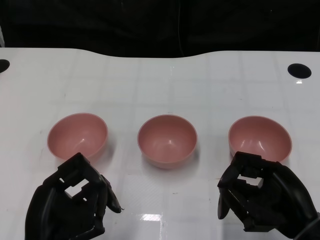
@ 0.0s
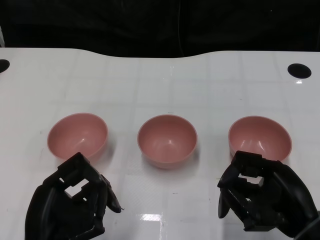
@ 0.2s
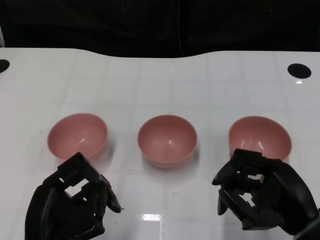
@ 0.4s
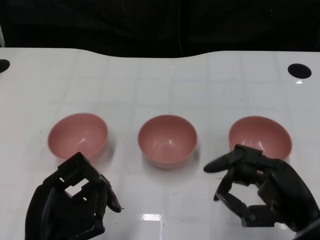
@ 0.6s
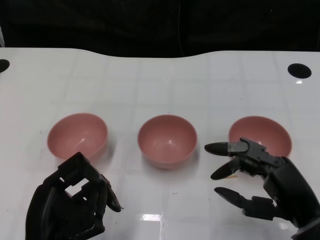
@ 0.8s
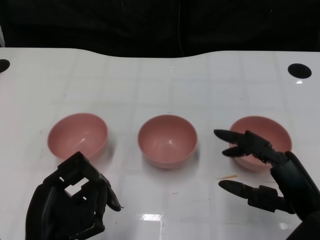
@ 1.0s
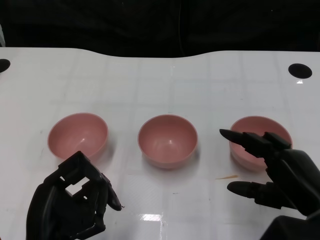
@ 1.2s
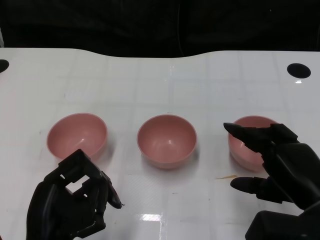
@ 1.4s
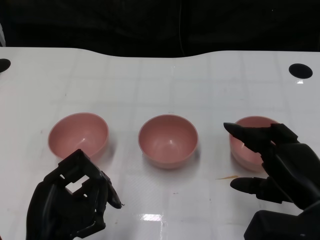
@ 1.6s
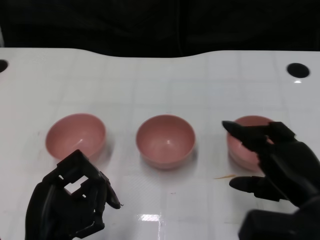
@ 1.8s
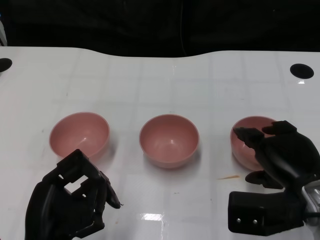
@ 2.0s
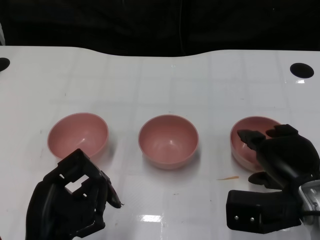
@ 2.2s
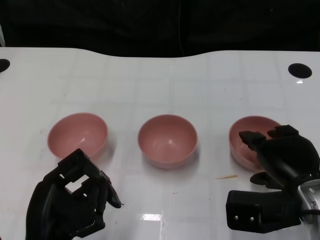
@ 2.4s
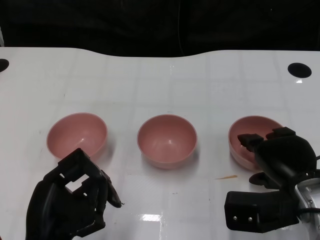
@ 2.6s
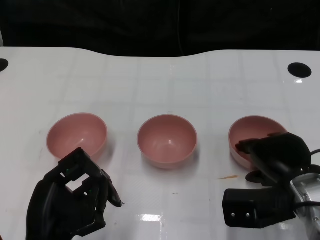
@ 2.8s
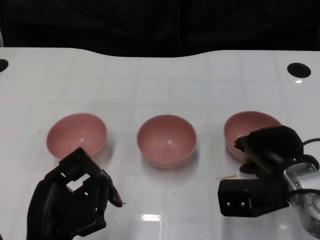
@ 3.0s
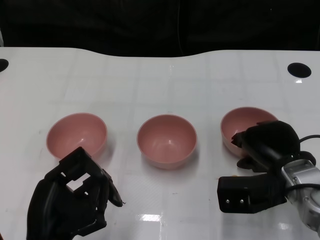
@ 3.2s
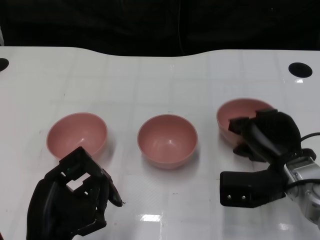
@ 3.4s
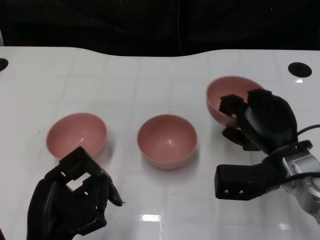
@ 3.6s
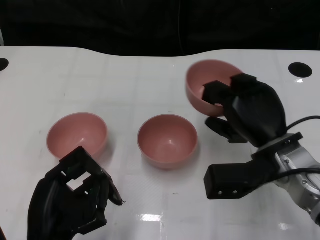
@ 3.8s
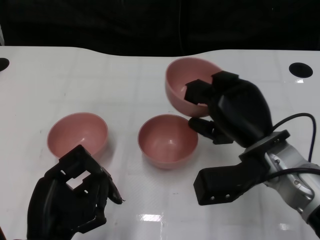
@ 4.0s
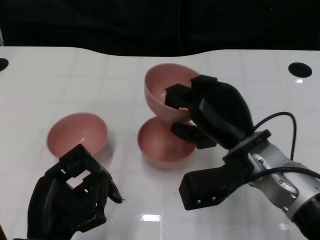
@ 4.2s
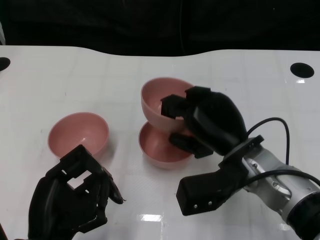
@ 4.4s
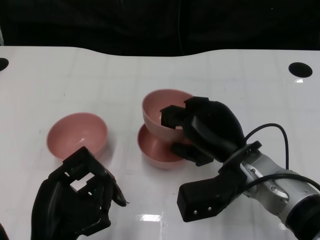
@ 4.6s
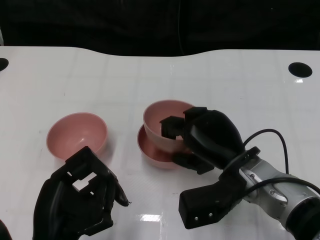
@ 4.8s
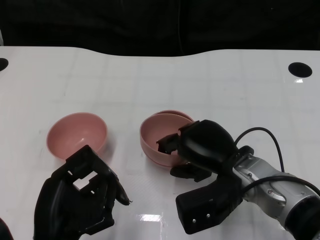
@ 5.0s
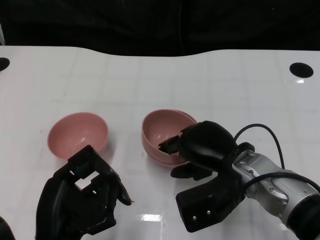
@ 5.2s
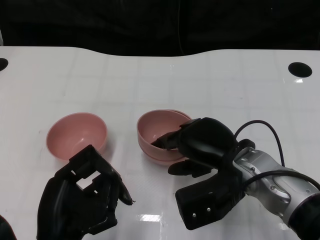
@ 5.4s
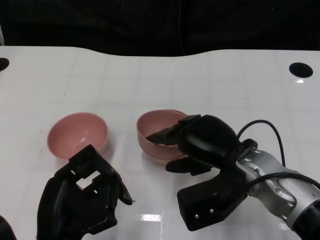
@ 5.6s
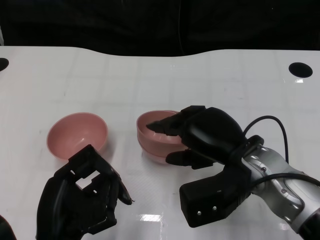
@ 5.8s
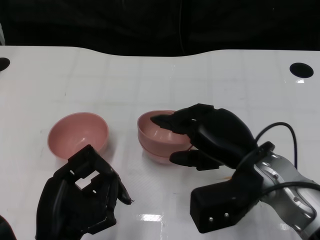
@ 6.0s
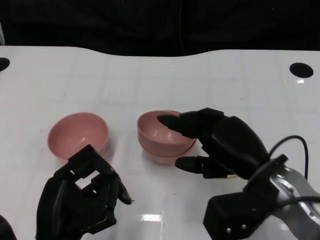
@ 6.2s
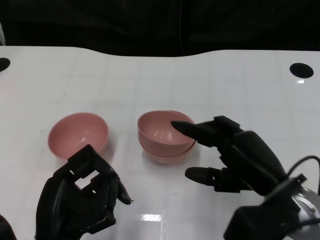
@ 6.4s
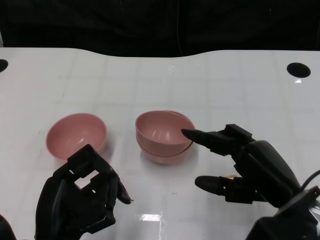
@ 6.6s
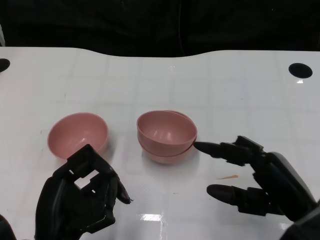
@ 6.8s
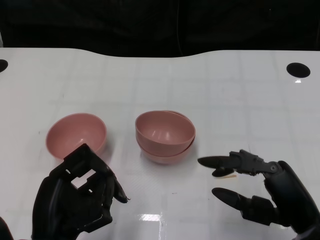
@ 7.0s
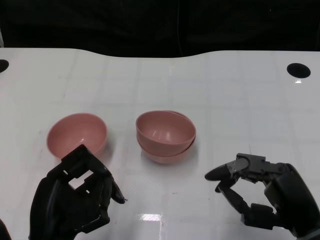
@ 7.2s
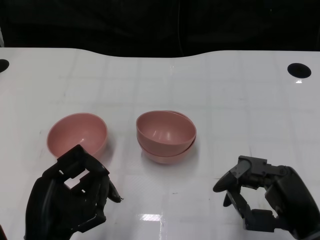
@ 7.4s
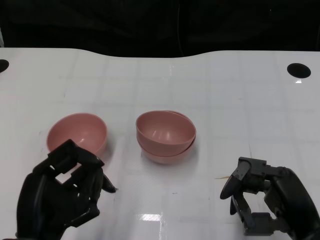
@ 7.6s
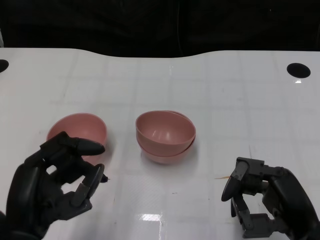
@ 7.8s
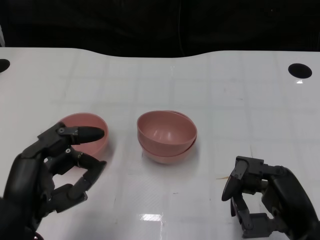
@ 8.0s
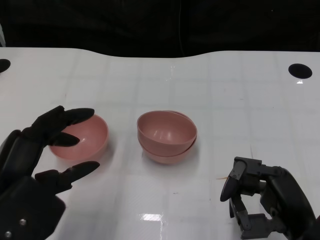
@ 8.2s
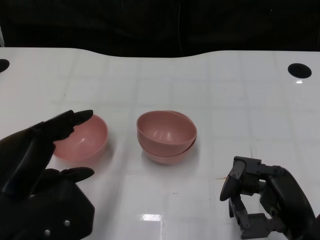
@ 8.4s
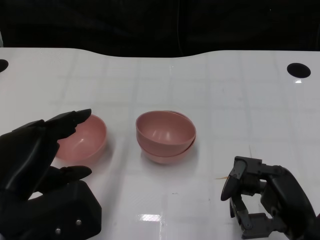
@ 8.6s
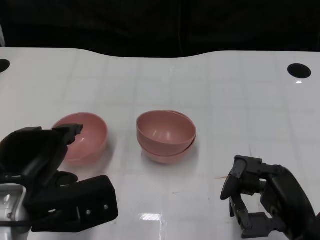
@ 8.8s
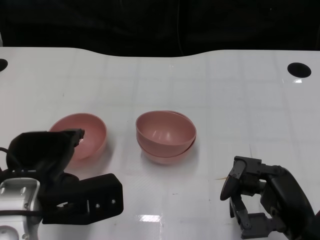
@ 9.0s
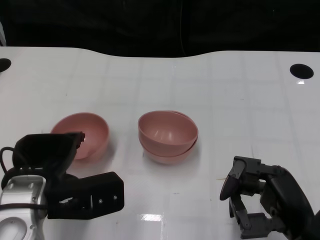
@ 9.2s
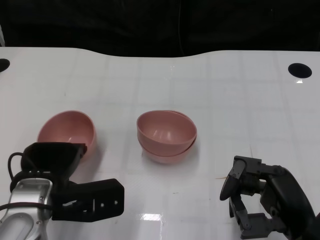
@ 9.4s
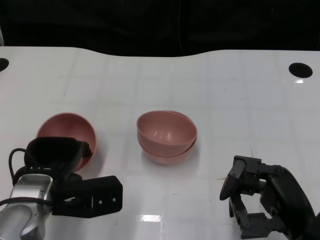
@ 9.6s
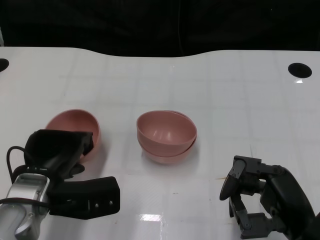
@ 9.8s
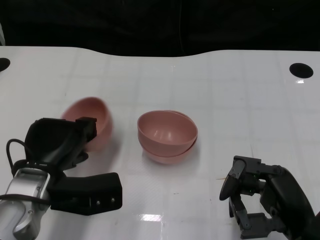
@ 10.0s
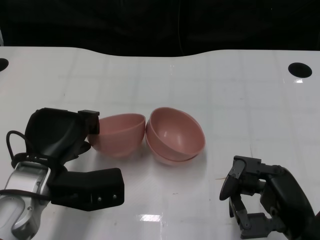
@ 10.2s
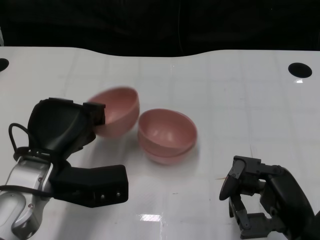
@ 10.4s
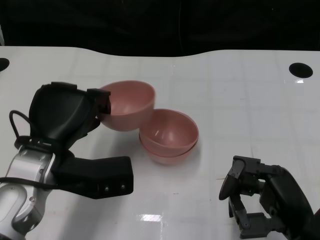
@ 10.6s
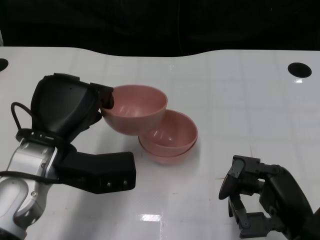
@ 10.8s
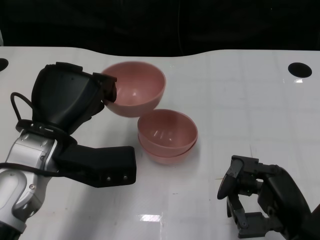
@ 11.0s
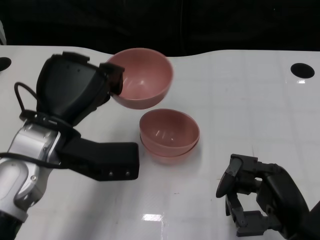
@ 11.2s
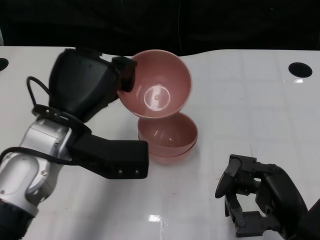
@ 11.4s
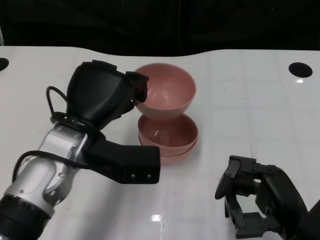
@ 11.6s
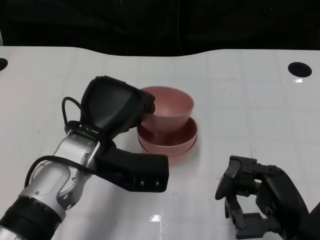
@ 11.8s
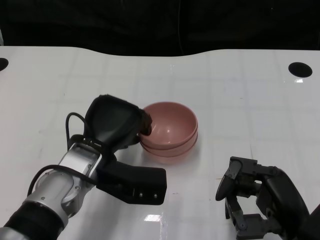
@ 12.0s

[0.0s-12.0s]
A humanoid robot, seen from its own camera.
Task of the whole recording: Pick up the bowl on one side of the table and place it on top of the middle bowl, then pick up the bowl on the other side of the table and place it on top of the middle bowls.
Step, 3.6s to 6.6s: Grasp the bowl on the right with the right gripper.
Step, 6.8s to 9.8s: Grasp the bowl on the left with the left gripper.
1.6s to 3.0s: The right hand is displaced forward by approximately 5 cm.
3.0s to 4.4s: The right hand is displaced to the left by some 10 cm.
6.0s to 7.6s: The right hand moves backward and to the right, approximately 10 cm.
7.6s to 9.0s: The left hand goes roughly 5 cm forward.
10.4s to 12.0s: The left hand travels to the right by approximately 5 cm.

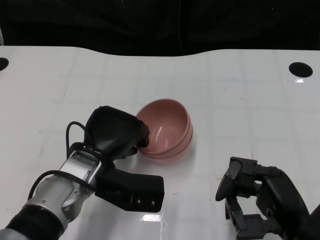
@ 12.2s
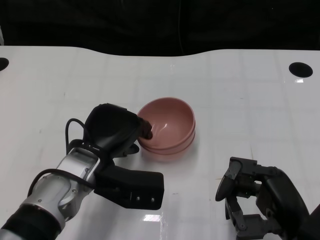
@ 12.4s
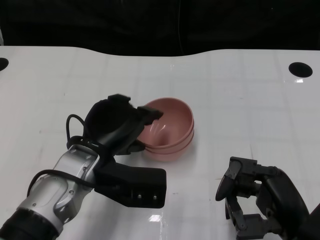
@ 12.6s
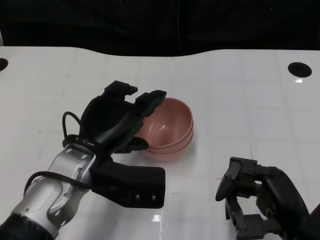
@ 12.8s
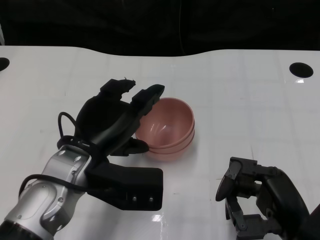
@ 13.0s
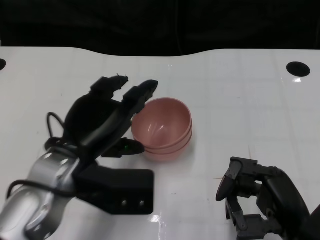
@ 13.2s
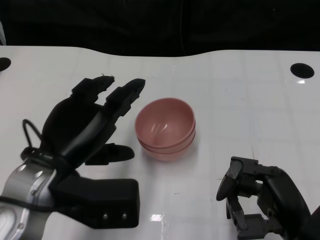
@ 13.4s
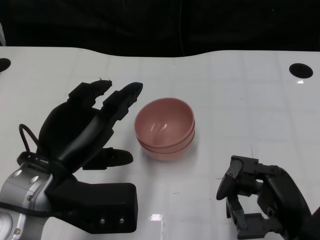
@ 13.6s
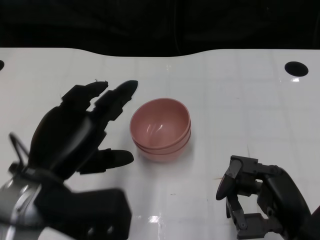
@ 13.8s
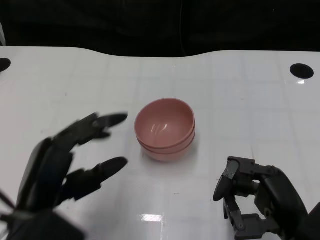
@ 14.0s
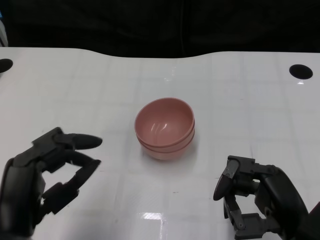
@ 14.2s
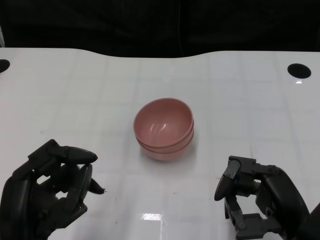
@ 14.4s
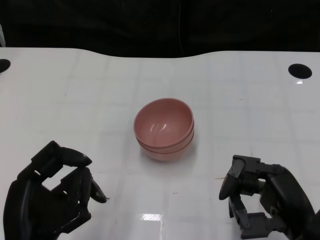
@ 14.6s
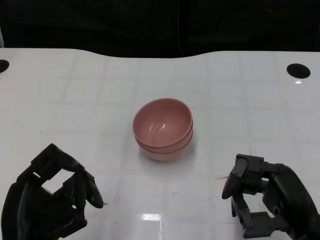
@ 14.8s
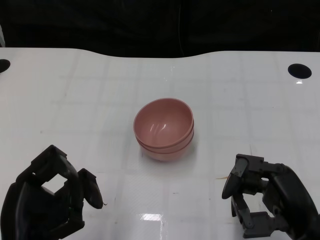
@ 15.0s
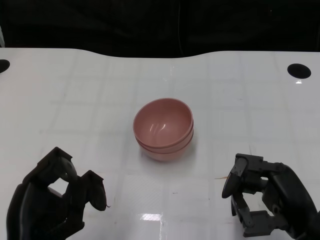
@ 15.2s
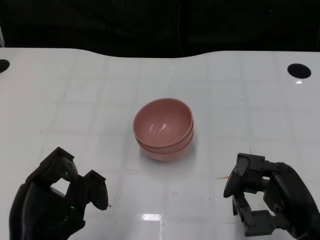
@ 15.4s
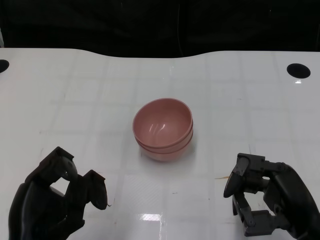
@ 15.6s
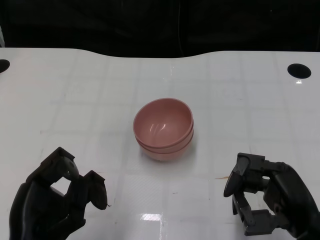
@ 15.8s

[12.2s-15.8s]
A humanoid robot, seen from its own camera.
Task of the whole recording: Pick up the bowl on one side of the table and place it on top of the middle bowl, then pick up the bowl on the other side of the table and place it on top of the middle bowls.
12.2s to 14.0s: The left hand is displaced backward and to the left by approximately 10 cm.

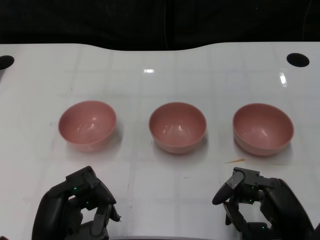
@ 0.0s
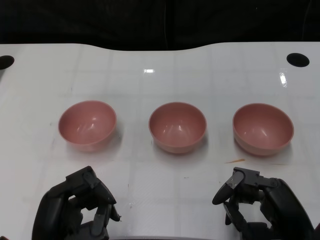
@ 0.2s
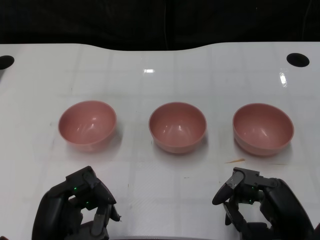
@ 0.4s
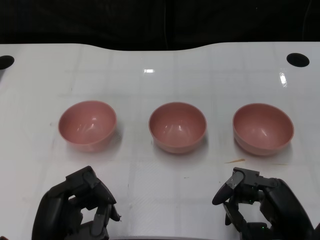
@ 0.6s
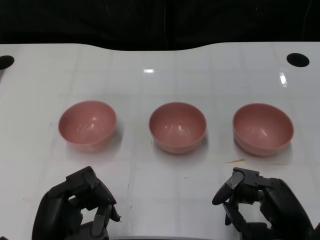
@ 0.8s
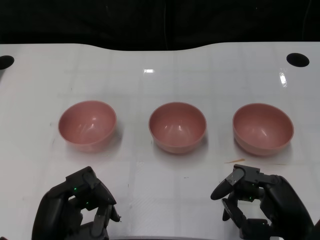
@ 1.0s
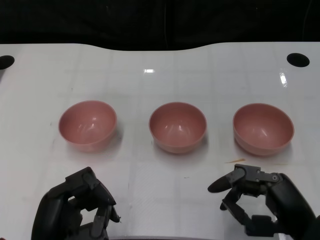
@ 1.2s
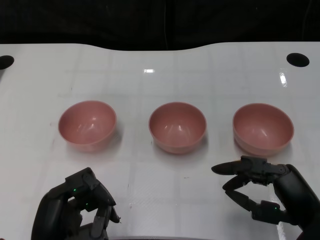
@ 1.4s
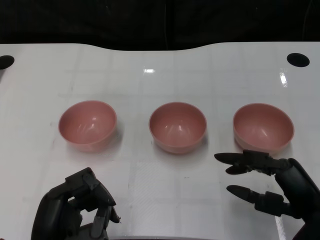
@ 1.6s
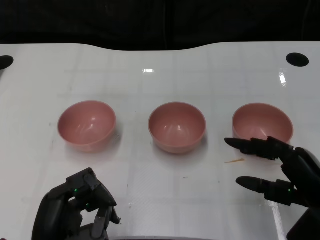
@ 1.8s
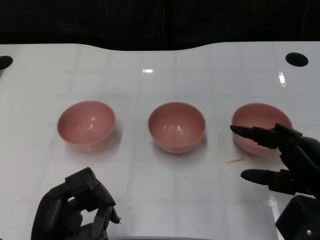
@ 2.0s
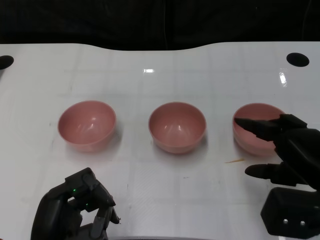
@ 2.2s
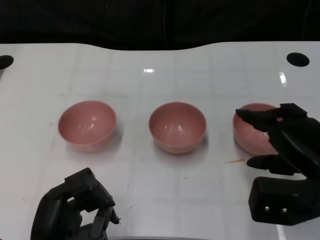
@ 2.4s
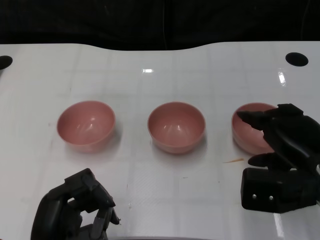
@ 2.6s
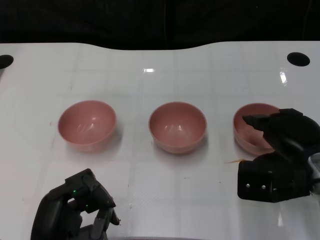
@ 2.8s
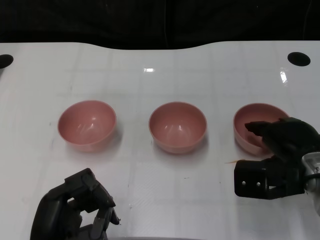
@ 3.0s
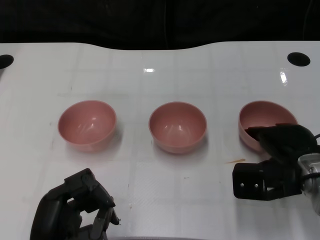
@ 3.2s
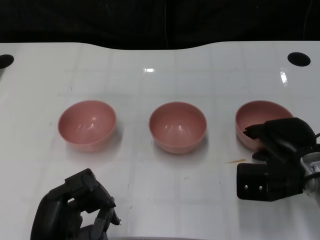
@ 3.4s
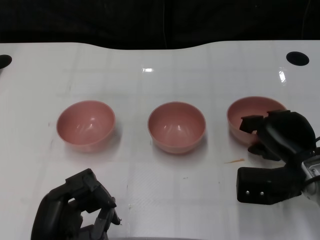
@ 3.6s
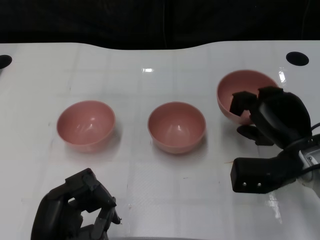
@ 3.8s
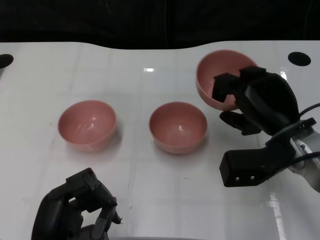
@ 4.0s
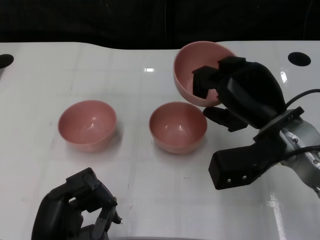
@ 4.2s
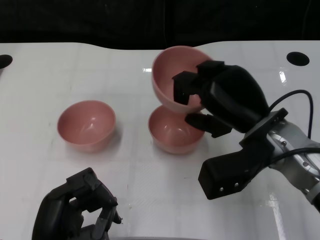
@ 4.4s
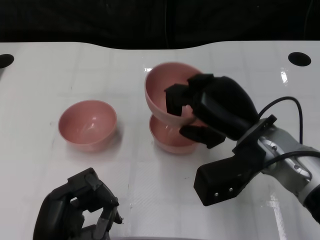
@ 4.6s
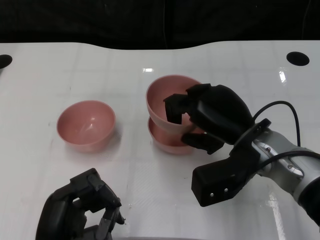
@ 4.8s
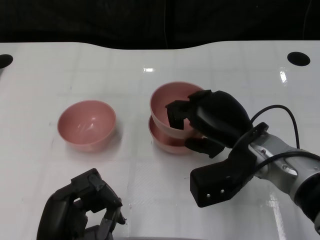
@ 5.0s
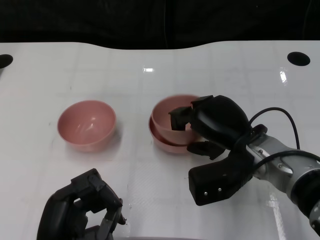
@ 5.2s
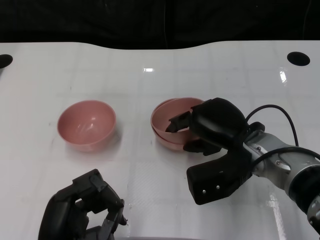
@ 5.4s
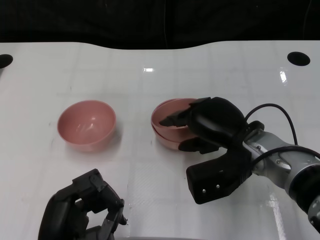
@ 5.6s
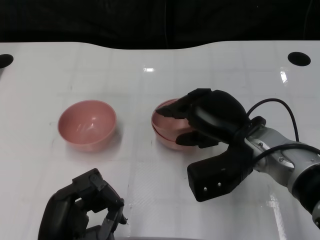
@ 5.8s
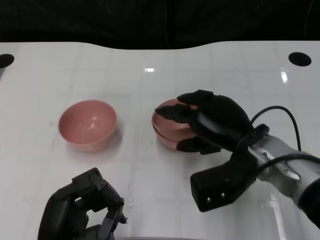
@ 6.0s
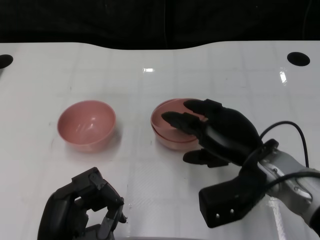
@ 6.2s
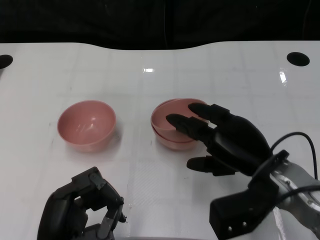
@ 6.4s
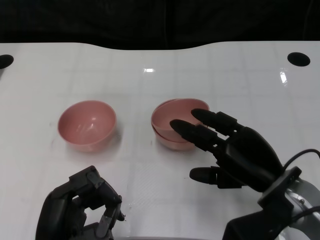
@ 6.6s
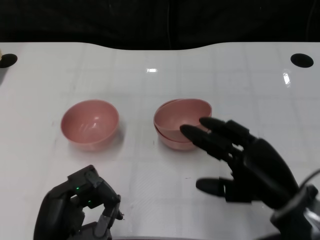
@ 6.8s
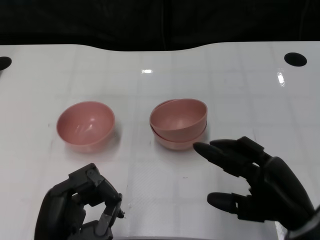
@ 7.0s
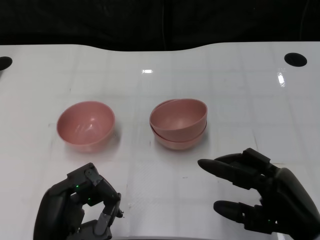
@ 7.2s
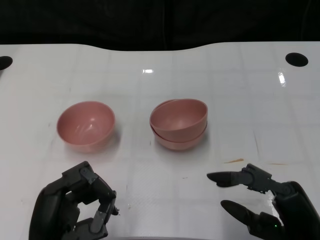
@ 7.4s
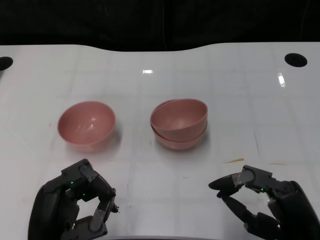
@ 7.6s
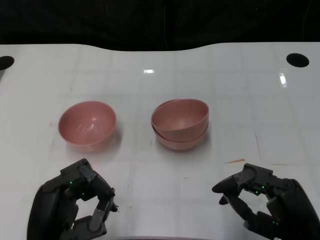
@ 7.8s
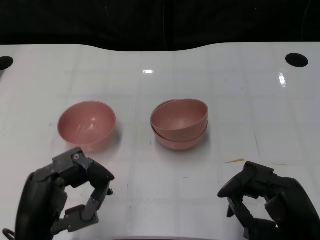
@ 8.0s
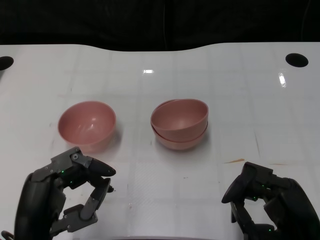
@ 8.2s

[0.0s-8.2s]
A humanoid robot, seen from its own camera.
Task of the whole recording: Pick up the bowl on one side of the table and place it on top of the middle bowl, then pick up the bowl on the other side of the table and place it on top of the middle bowls.
Step, 1.0s to 3.6s: Grasp the bowl on the right with the right gripper.
Step, 3.8s to 6.4s: Place the bowl on the right onto the bowl in the middle with right gripper.
1.6s to 3.2s: The right hand is displaced forward by approximately 10 cm.
3.2s to 5.0s: The right hand goes roughly 10 cm to the left.
5.0s to 6.6s: The right hand moves backward, about 5 cm.
6.6s to 8.2s: The right hand heads backward, covering approximately 10 cm.
